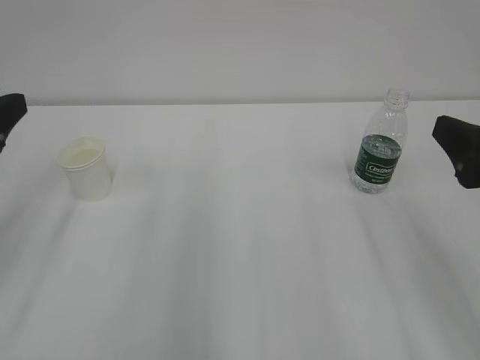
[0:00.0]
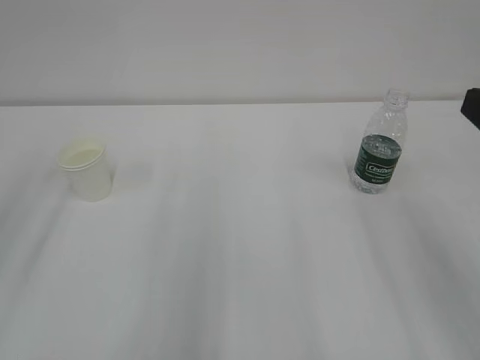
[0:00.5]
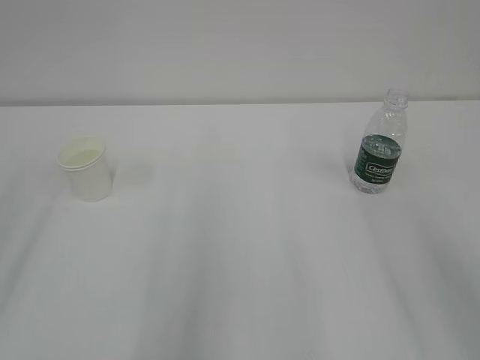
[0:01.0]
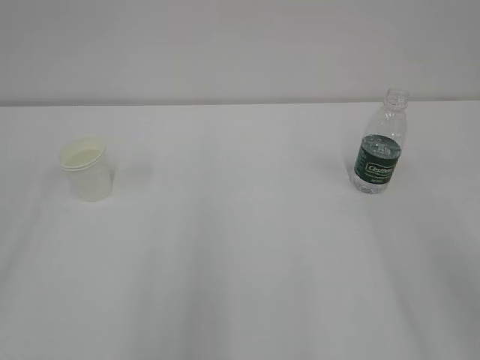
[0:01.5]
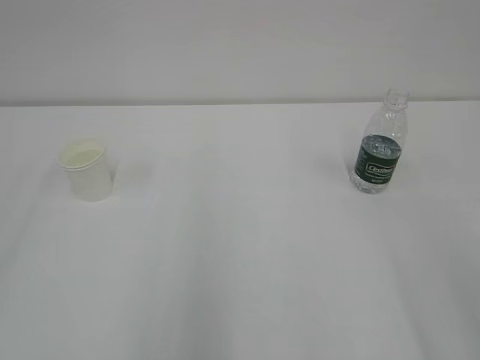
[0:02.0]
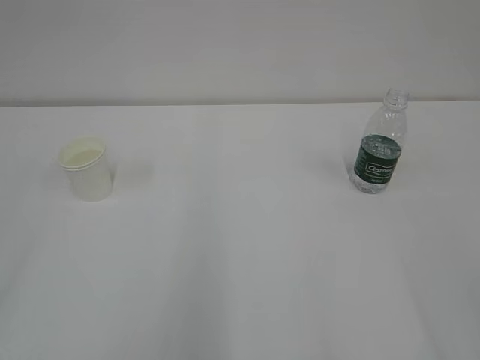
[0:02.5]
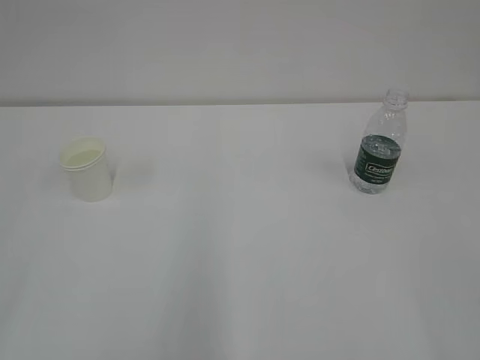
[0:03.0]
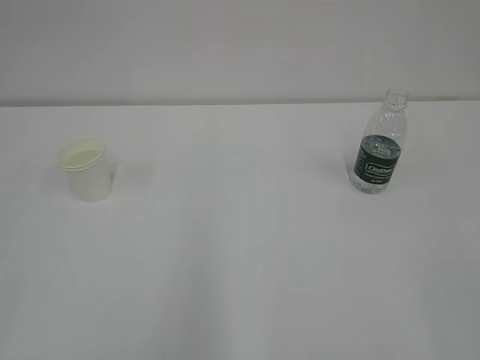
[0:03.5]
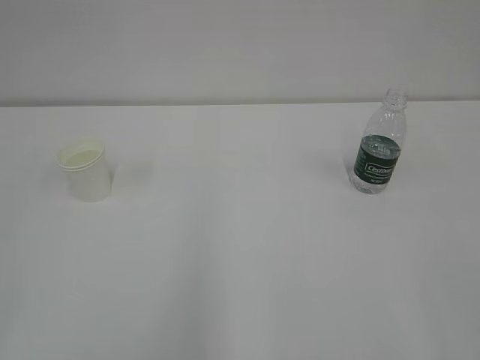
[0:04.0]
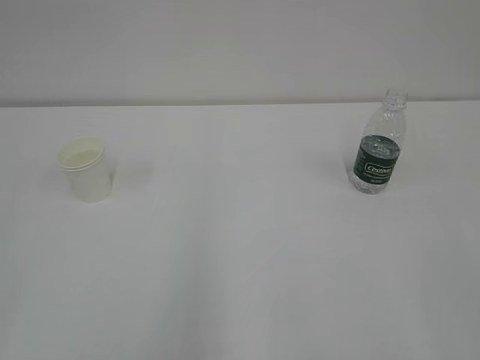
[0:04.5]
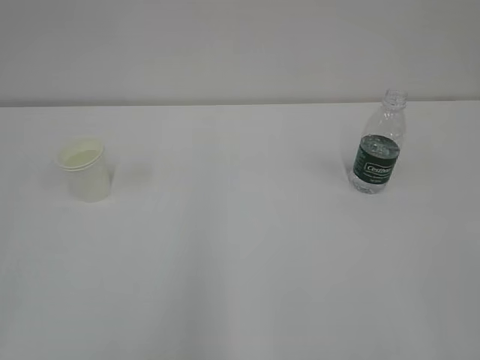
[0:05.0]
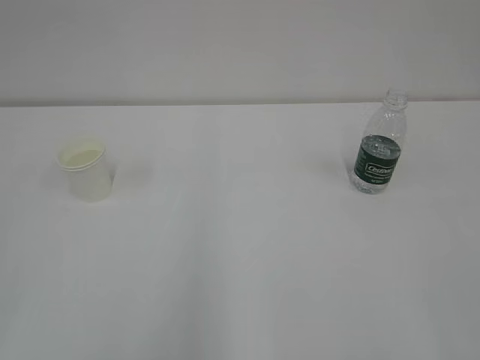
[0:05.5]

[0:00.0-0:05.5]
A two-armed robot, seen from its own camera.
0:00.0 to 0:02.0: The right gripper travels backward and upward by some 15 cm.

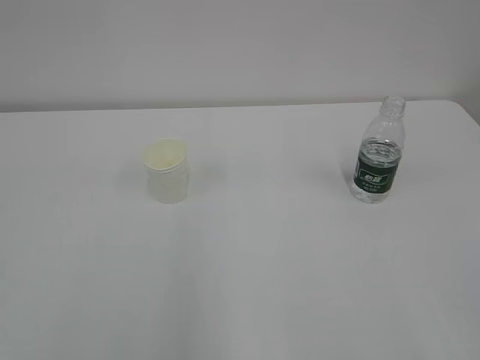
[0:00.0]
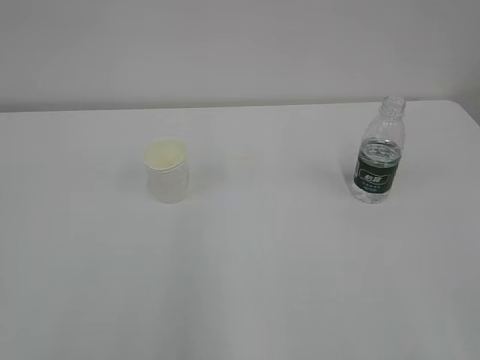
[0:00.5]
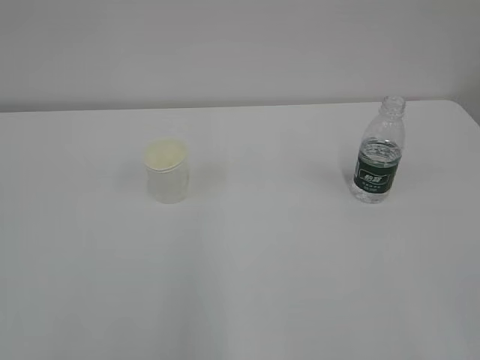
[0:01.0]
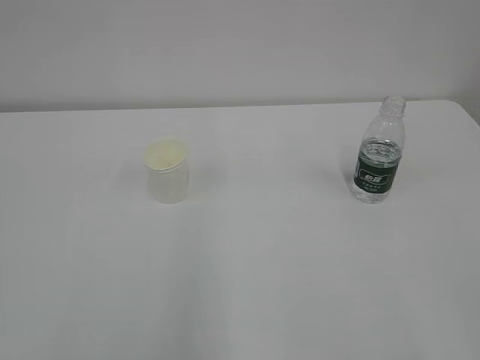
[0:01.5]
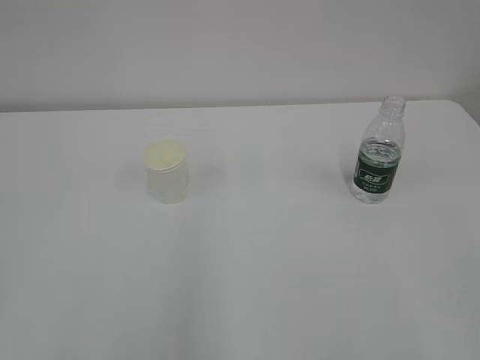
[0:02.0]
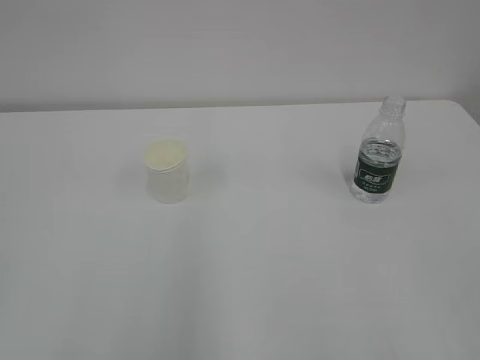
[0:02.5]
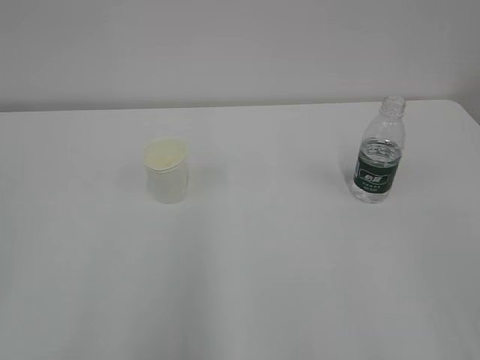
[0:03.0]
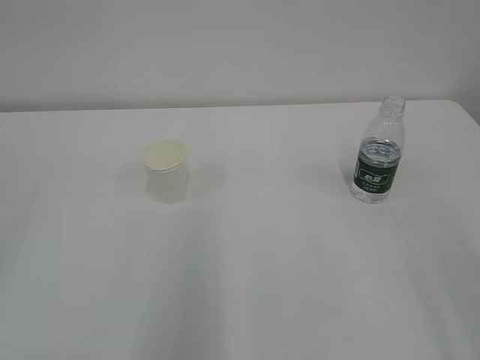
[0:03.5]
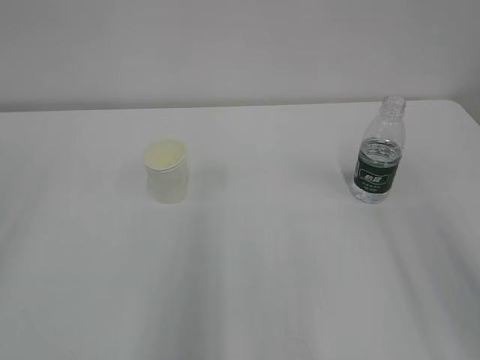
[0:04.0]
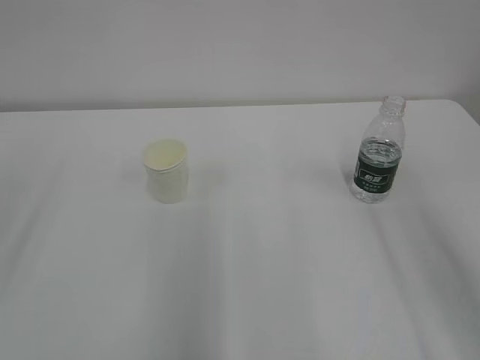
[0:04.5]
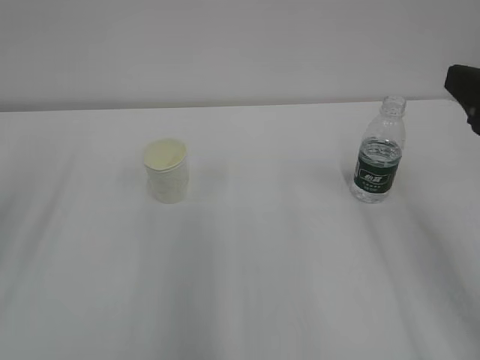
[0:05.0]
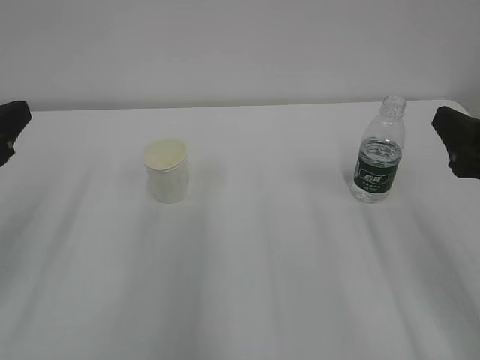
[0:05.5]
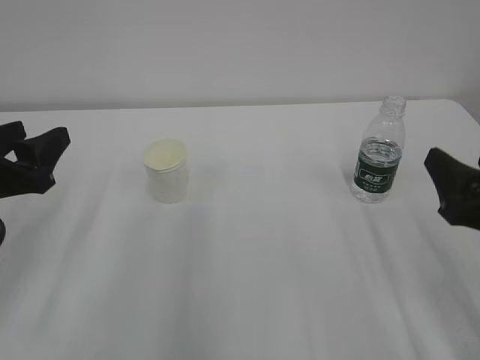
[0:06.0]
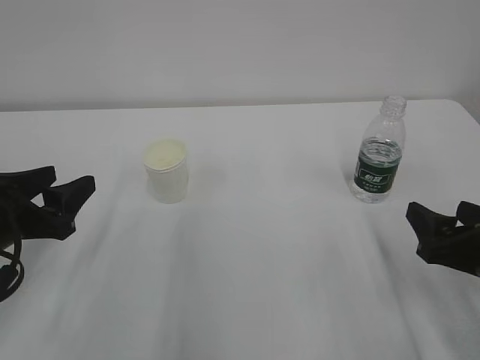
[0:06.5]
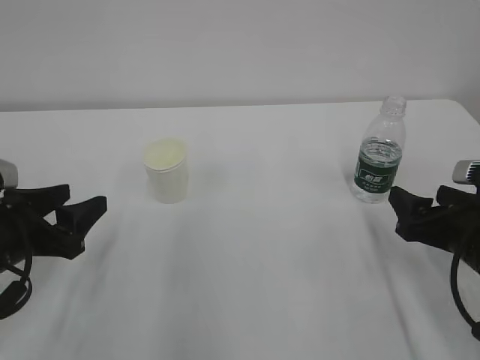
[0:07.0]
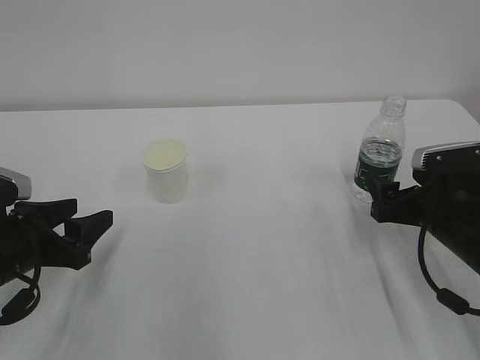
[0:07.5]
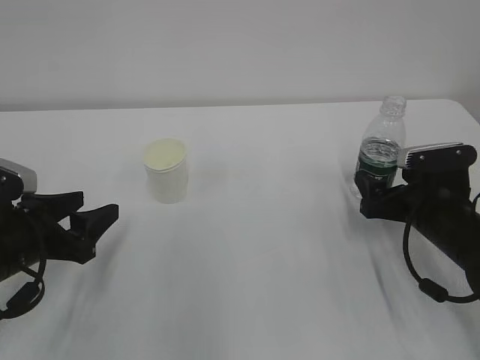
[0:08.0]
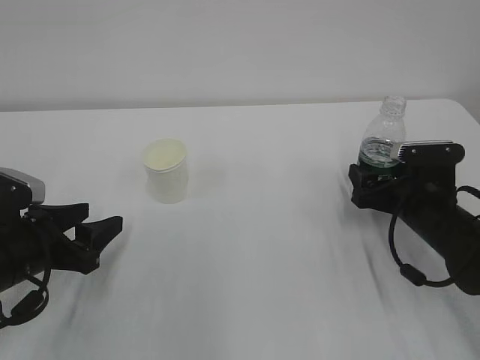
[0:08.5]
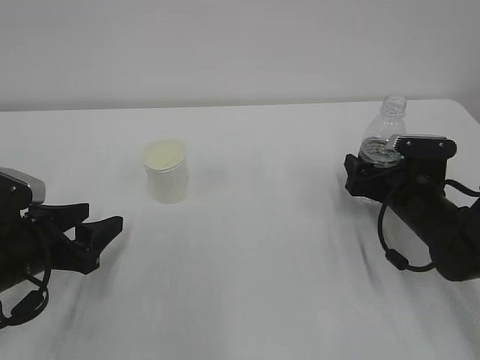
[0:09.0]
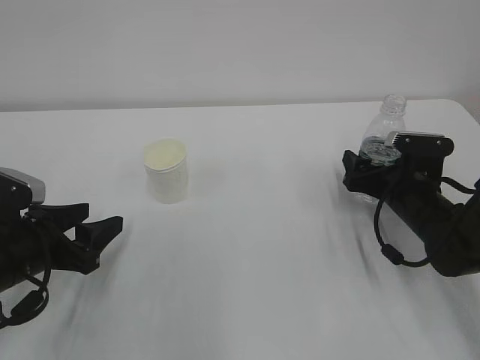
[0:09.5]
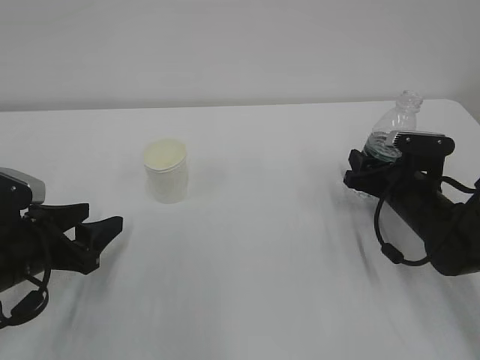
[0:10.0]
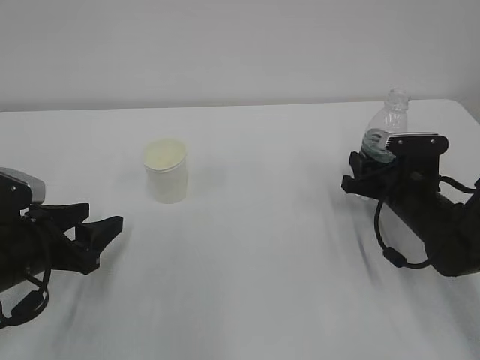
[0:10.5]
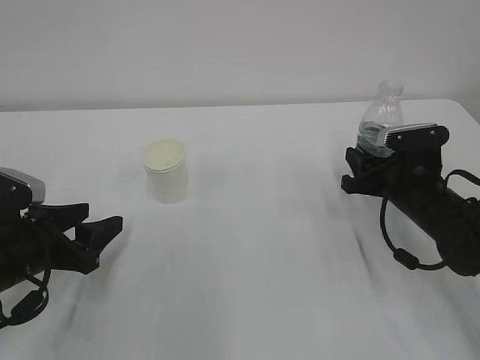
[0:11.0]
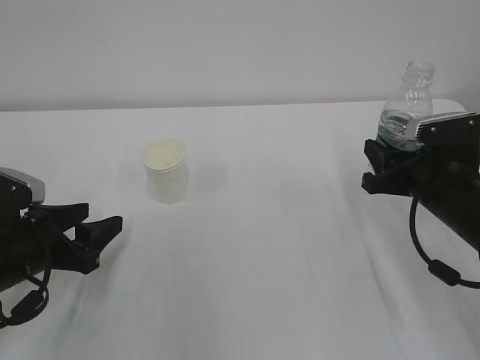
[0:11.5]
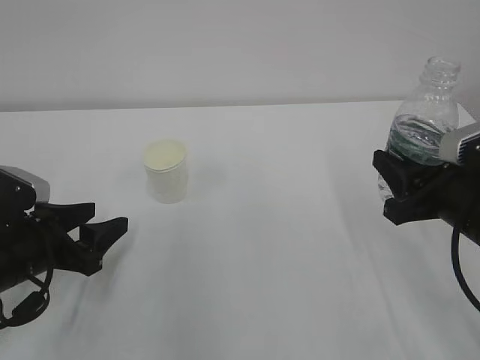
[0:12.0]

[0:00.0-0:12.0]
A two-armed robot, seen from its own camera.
0:04.0 to 0:06.0: Both grippers move downward and forward, some 15 cm.
0:06.0 to 0:08.0: The right gripper shifts approximately 15 cm forward and downward. Meanwhile the left gripper travels downward by about 10 cm.
0:08.0 to 0:10.0: The right gripper goes about 5 cm forward, and closes.
0:10.0 to 0:12.0: The right gripper goes roughly 15 cm backward and upward, and closes.

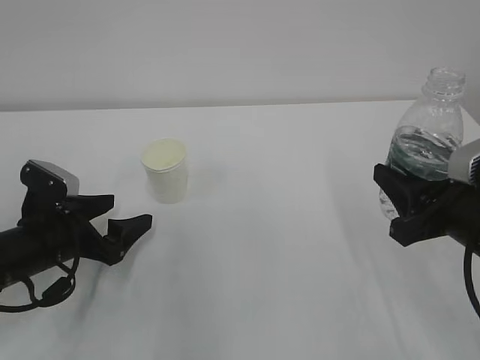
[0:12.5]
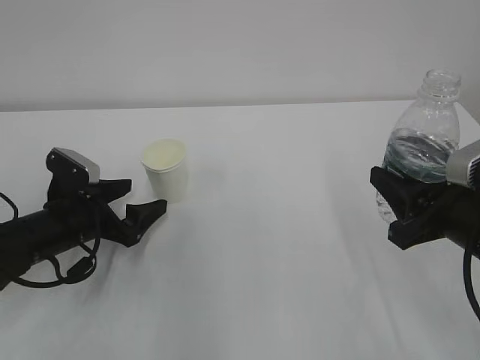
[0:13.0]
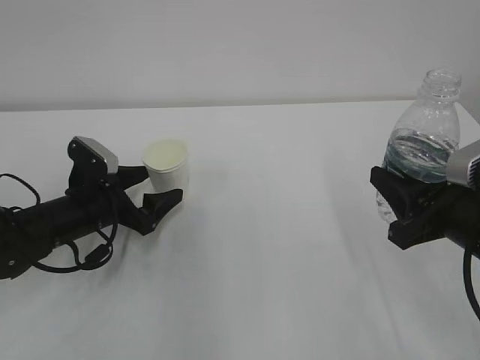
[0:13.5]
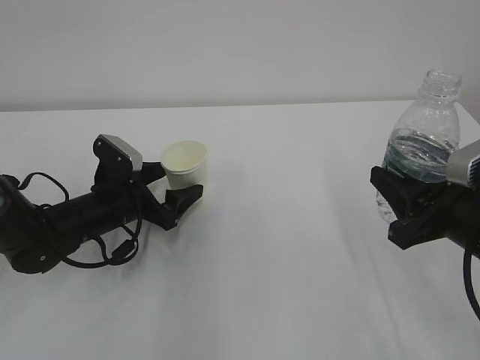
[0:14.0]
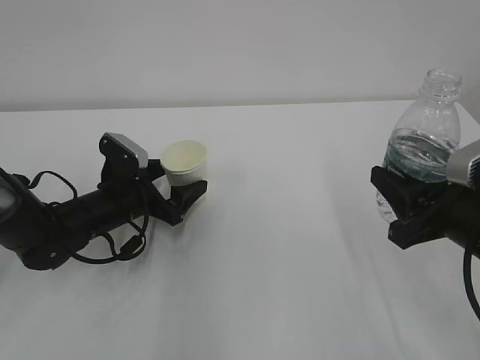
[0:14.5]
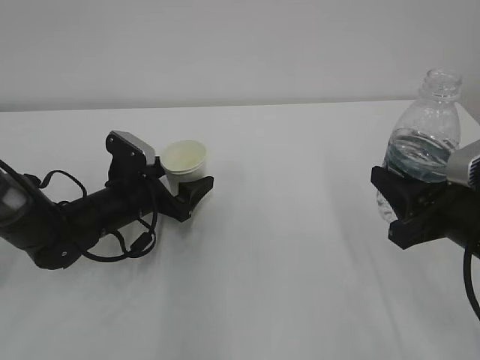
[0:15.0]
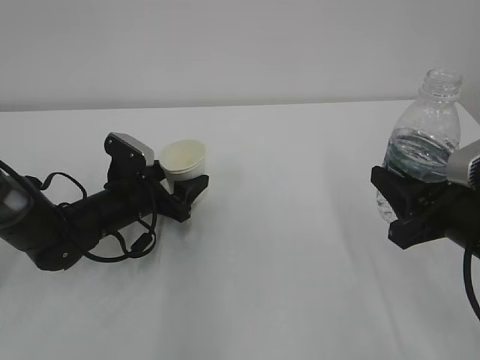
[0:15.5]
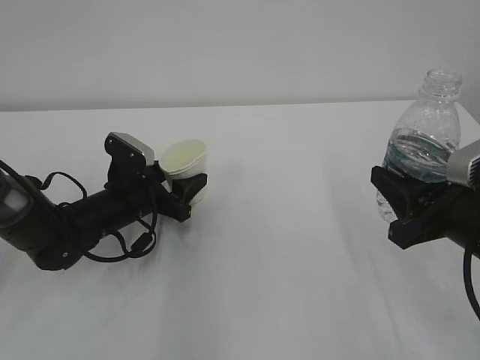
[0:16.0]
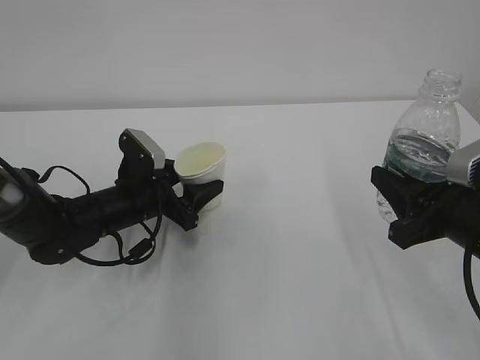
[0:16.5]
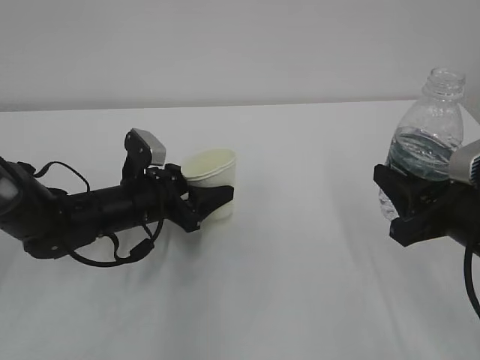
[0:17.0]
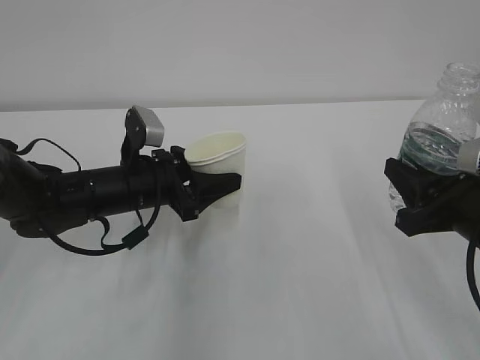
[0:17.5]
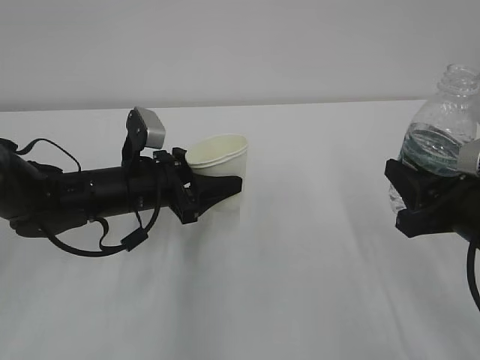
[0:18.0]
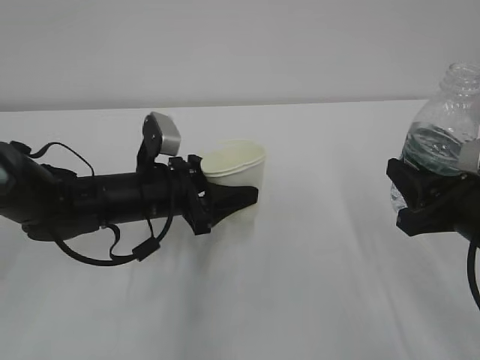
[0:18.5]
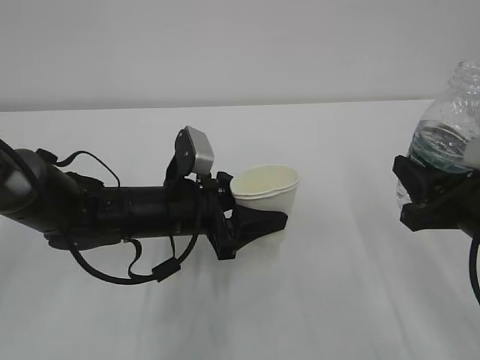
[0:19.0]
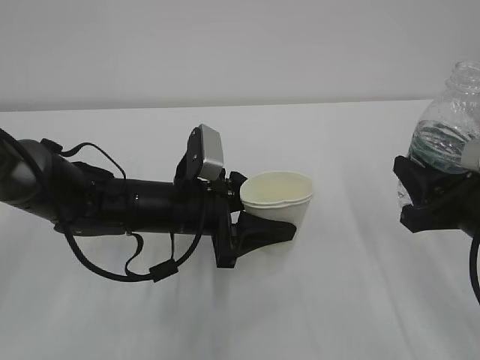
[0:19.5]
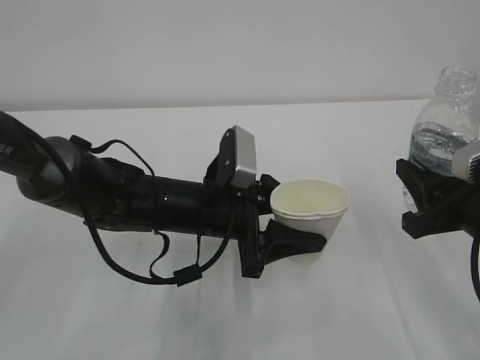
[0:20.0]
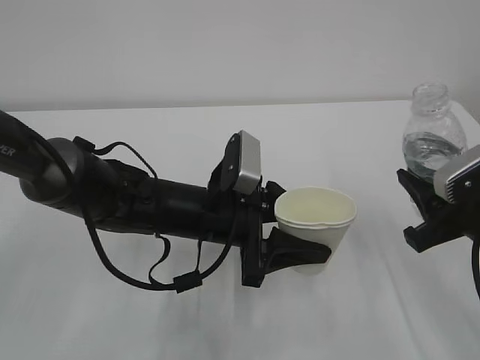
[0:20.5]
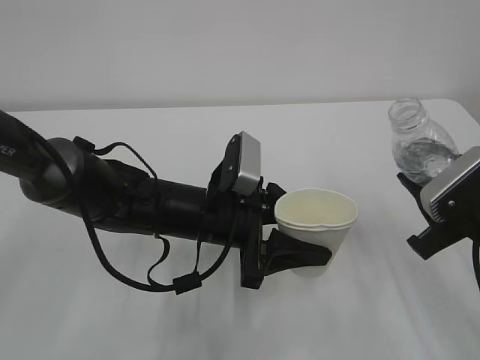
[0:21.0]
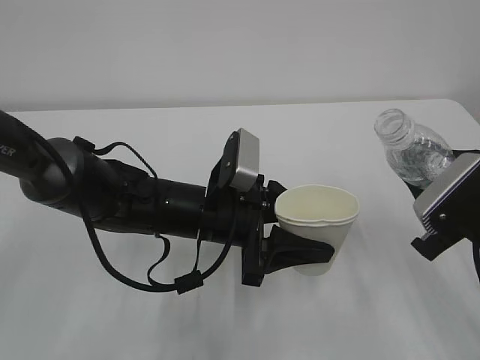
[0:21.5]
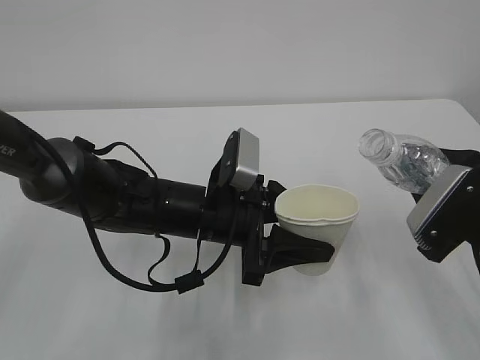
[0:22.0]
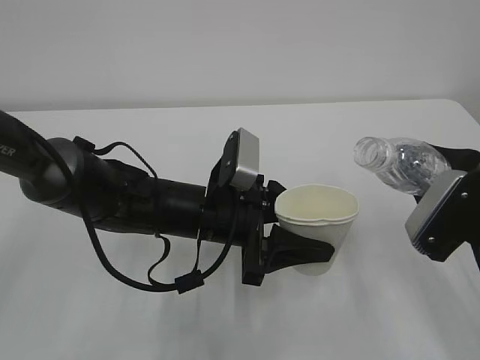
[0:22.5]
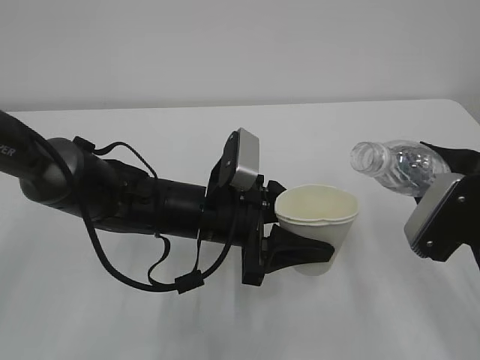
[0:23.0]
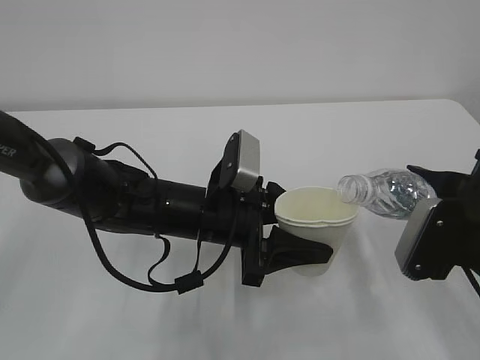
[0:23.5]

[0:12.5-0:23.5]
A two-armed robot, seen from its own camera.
0:12.5 to 0:14.5: The left gripper travels forward and to the right by some 10 cm.
0:14.5 to 0:16.0: The left gripper closes up.
0:16.0 to 0:18.0: The left gripper heads upward, covering some 5 cm.
0:18.0 to 0:20.0: The left gripper shifts roughly 10 cm to the right.
